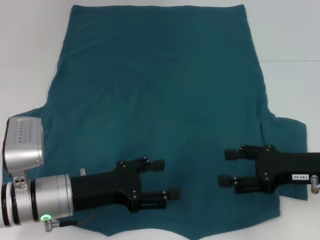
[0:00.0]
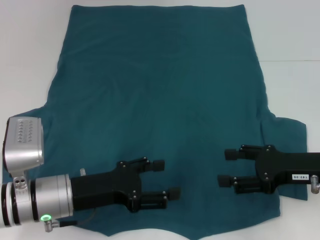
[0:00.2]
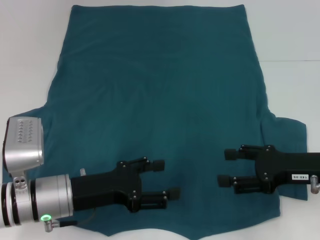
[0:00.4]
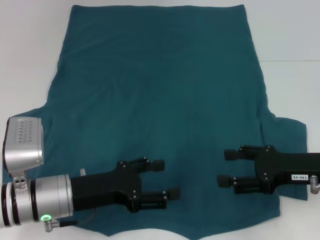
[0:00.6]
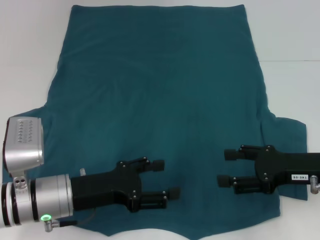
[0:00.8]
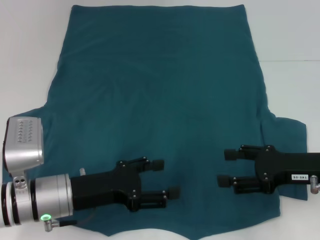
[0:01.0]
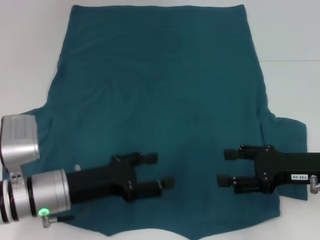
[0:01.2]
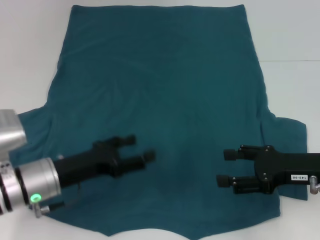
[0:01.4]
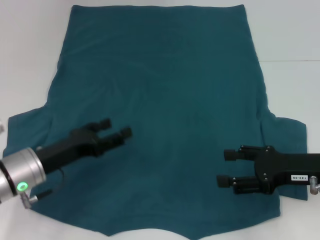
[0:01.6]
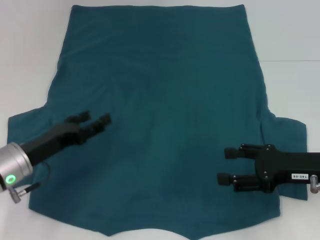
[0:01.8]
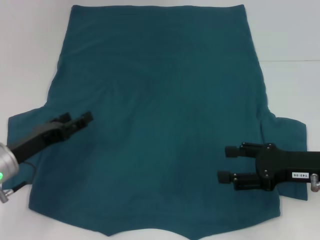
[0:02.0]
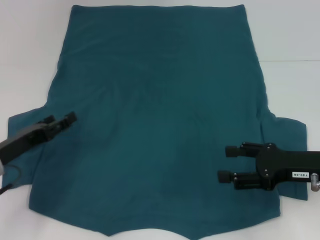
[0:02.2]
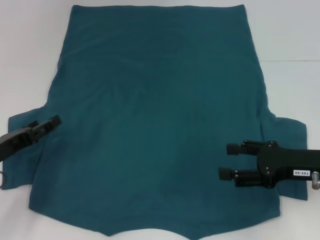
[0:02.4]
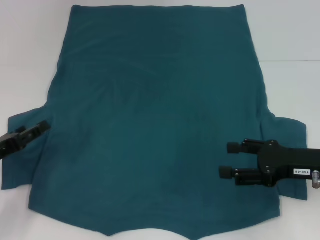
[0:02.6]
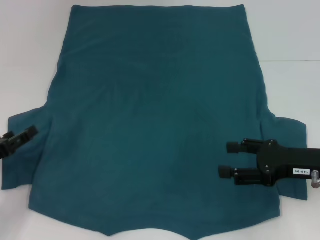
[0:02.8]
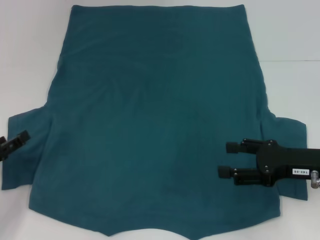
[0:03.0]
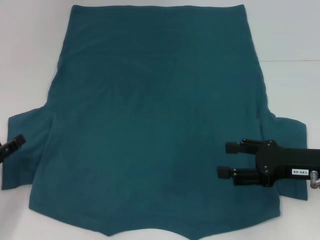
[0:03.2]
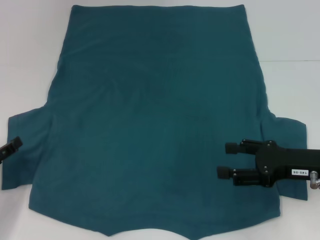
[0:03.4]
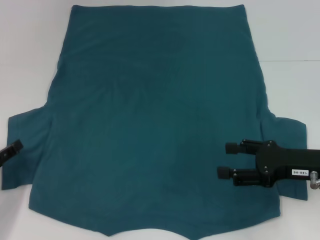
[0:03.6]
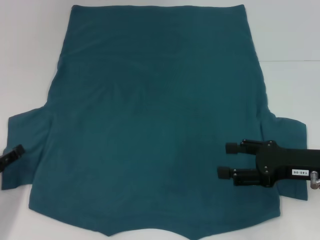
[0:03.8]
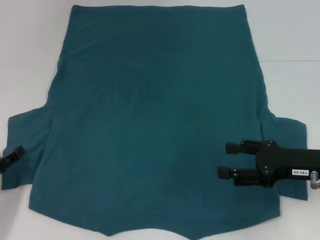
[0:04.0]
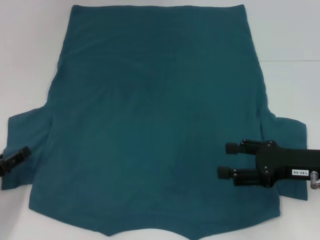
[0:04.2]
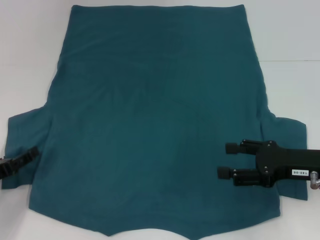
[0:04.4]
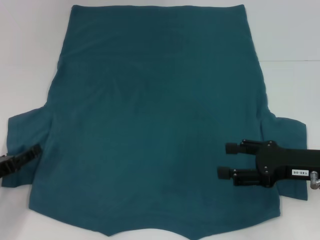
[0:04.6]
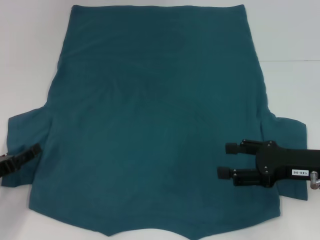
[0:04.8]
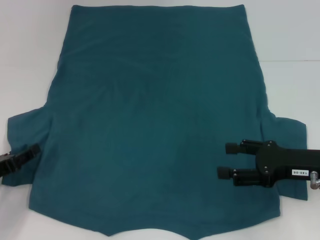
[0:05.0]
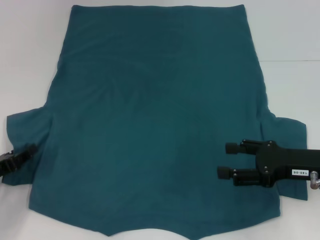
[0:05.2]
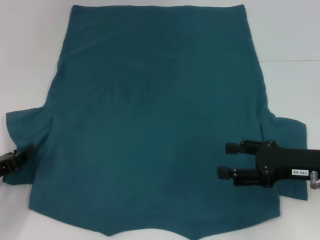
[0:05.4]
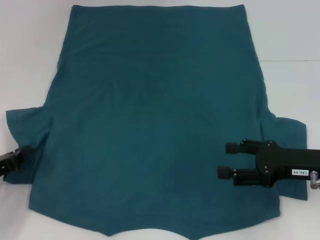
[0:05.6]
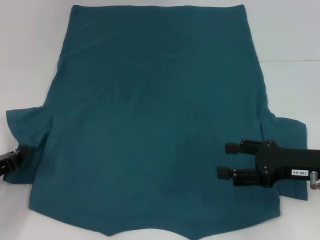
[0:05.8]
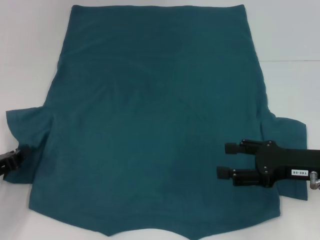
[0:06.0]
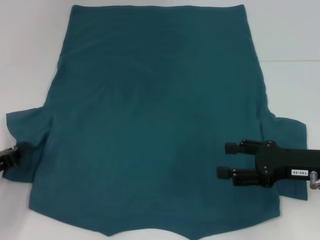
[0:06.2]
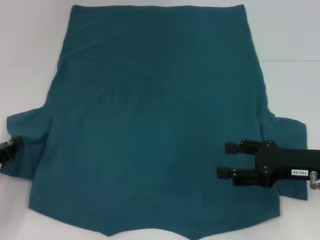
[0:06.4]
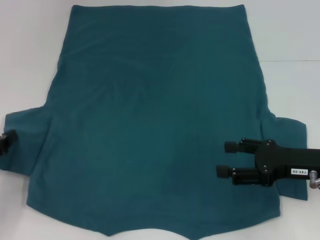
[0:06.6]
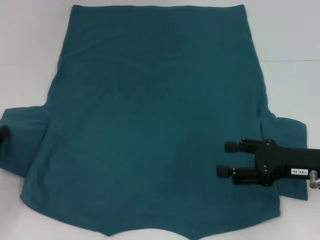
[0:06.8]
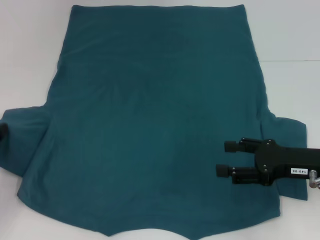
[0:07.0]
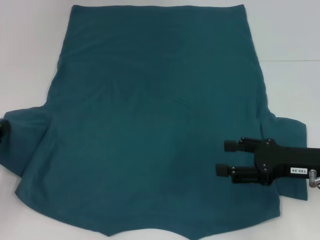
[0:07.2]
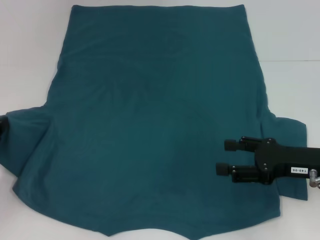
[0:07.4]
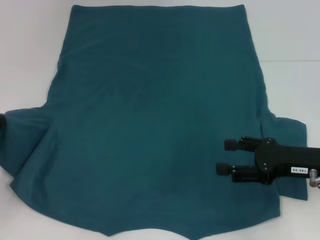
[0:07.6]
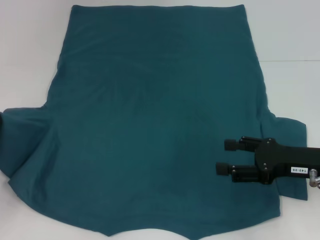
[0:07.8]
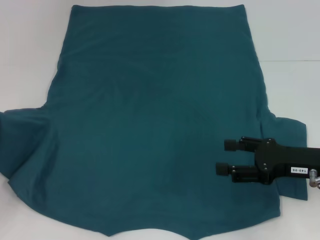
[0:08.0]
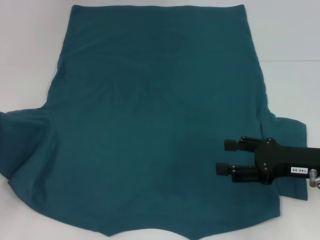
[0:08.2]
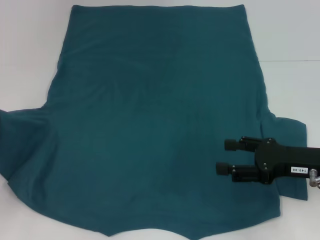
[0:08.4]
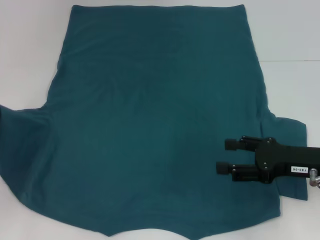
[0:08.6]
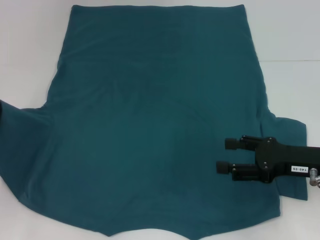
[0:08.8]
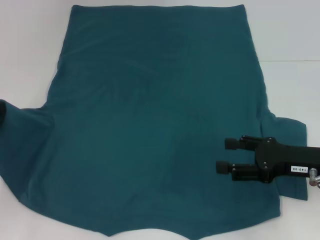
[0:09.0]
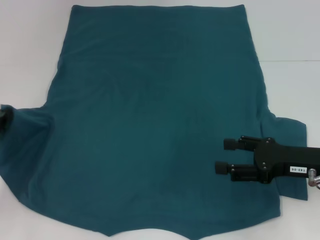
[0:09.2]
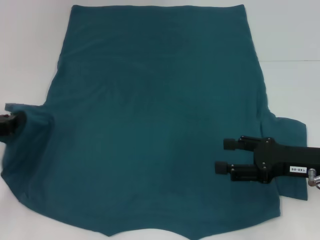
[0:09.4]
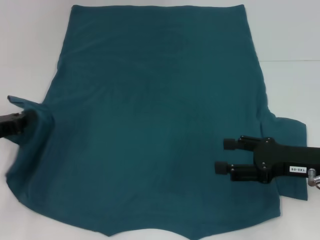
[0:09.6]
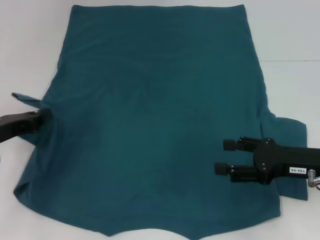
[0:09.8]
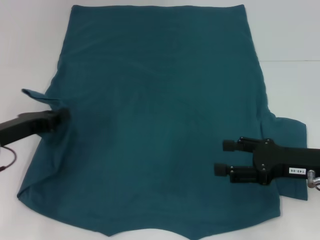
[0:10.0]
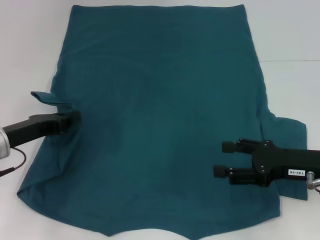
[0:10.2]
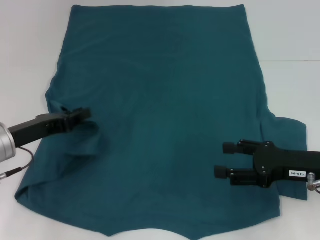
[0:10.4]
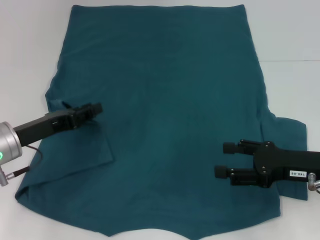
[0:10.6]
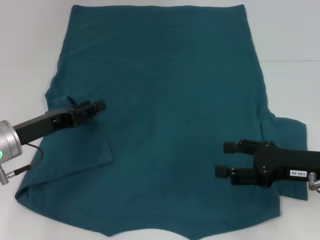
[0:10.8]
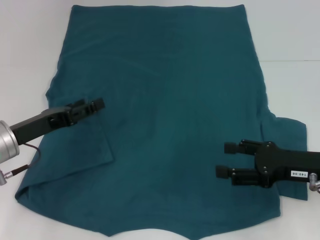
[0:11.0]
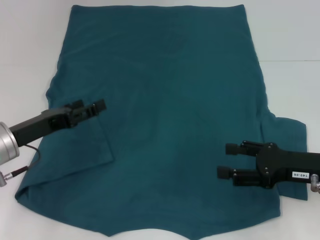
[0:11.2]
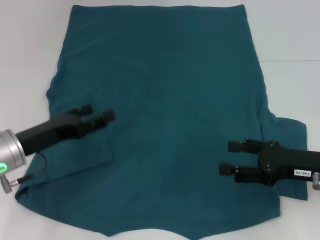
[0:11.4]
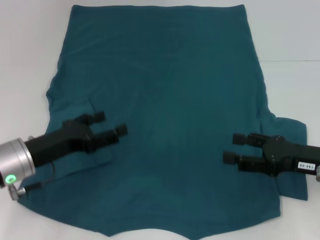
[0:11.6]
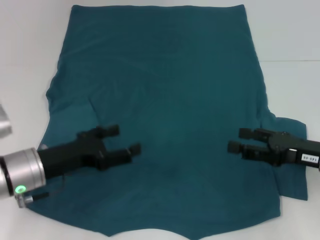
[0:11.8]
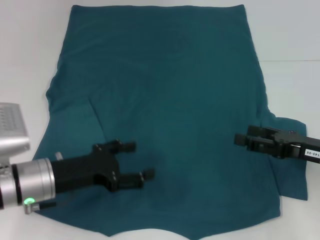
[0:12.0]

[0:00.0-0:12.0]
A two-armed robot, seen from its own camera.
Step, 0:00.0 to 0:11.2: Fold the bottom left sleeve with your left hand.
0:00.0 to 0:01.6: The left gripper shifts by approximately 5 cm.
0:01.6 to 0:03.0: The left gripper moves to the left, approximately 10 cm.
0:03.0 to 0:04.4: There are only small adjustments of the grippers.
0:04.4 to 0:06.0: The left gripper closes its fingers.
0:06.0 to 0:07.6: The left gripper ends up some 5 cm from where it was.
0:09.0 to 0:10.4: The left gripper travels to the right by approximately 10 cm.
0:10.4 to 0:12.0: The left gripper is displaced to the right by approximately 5 cm, and opens up.

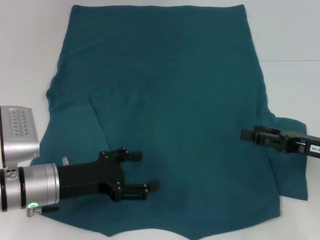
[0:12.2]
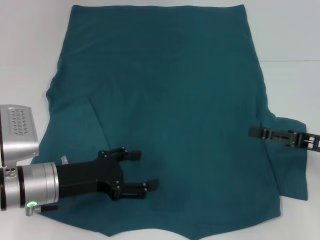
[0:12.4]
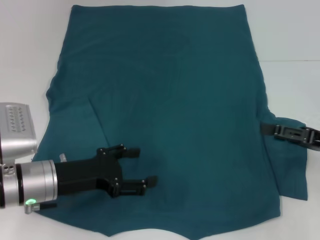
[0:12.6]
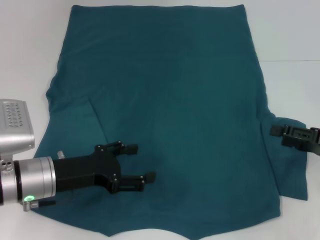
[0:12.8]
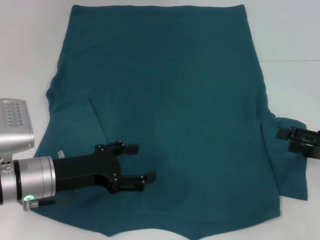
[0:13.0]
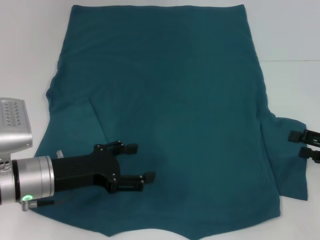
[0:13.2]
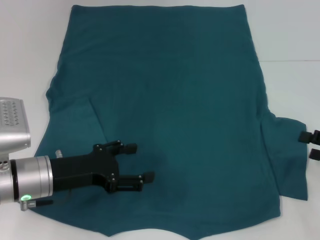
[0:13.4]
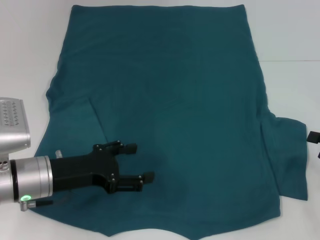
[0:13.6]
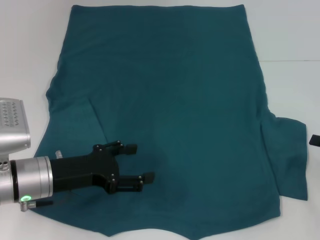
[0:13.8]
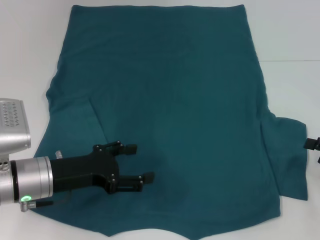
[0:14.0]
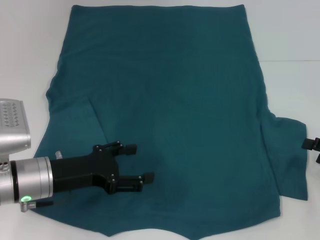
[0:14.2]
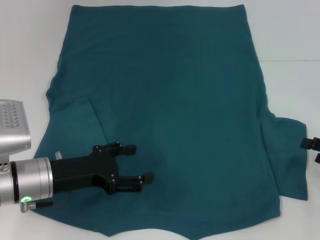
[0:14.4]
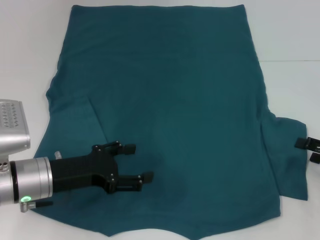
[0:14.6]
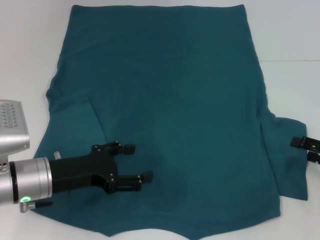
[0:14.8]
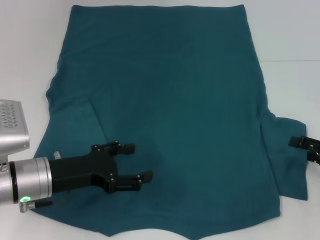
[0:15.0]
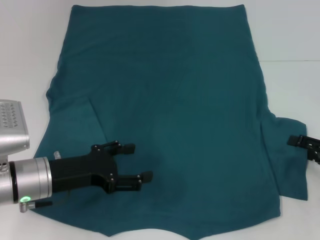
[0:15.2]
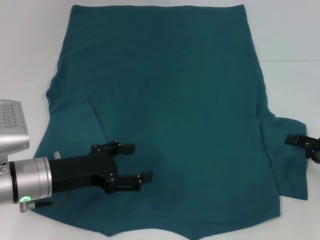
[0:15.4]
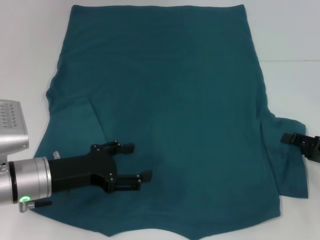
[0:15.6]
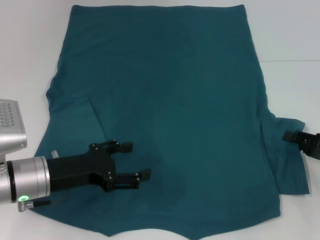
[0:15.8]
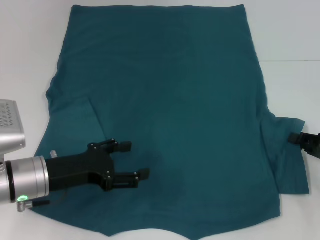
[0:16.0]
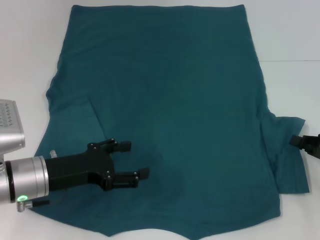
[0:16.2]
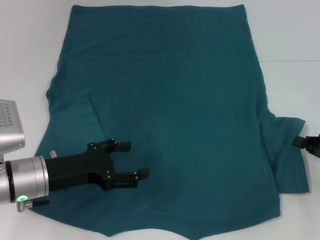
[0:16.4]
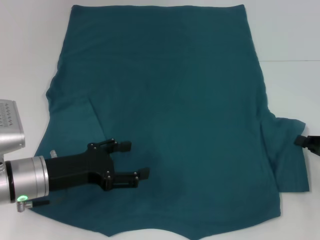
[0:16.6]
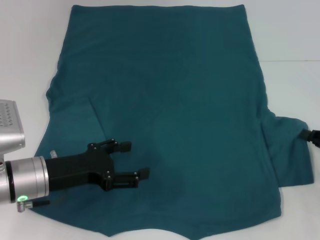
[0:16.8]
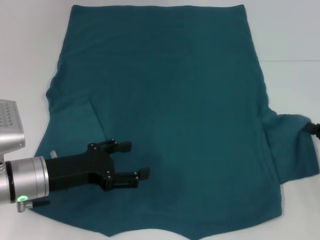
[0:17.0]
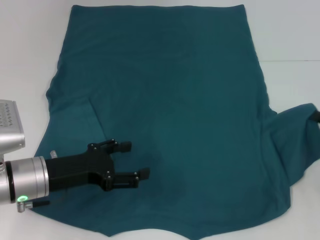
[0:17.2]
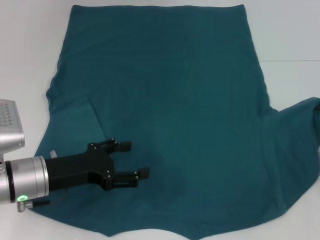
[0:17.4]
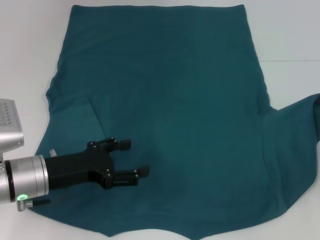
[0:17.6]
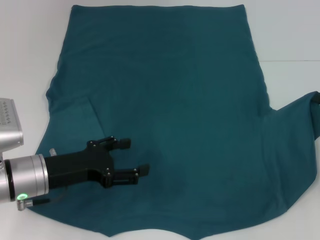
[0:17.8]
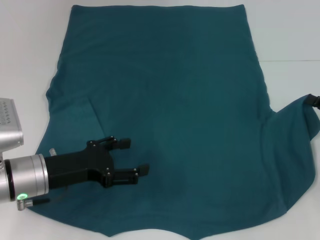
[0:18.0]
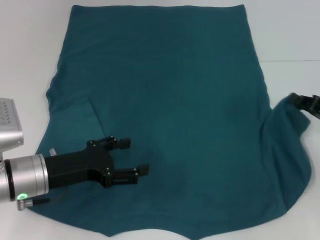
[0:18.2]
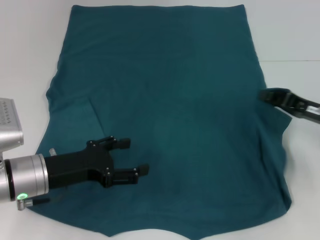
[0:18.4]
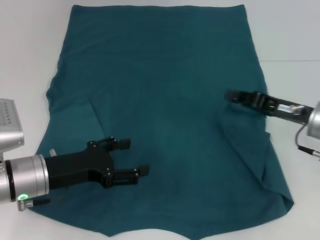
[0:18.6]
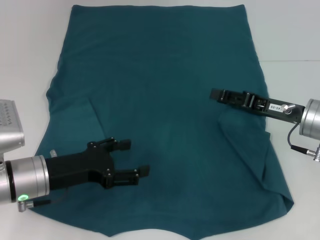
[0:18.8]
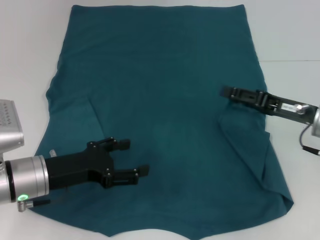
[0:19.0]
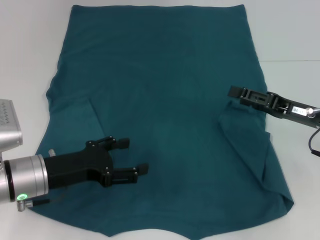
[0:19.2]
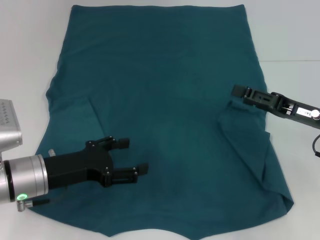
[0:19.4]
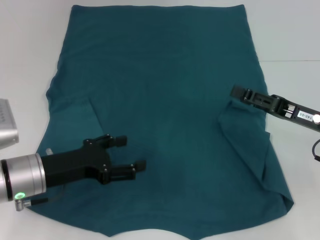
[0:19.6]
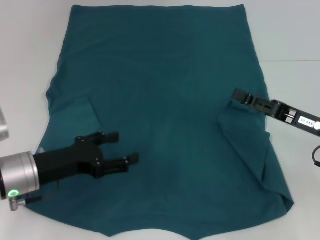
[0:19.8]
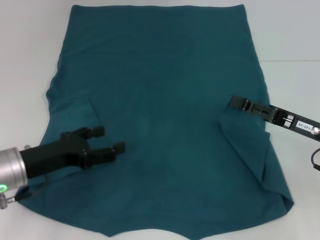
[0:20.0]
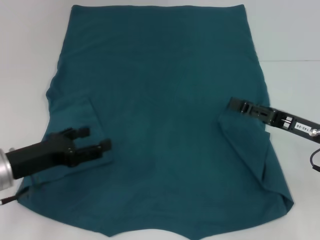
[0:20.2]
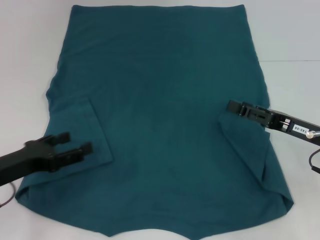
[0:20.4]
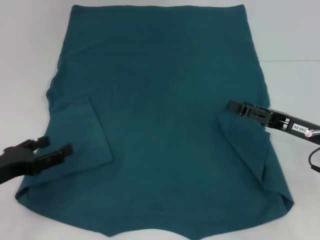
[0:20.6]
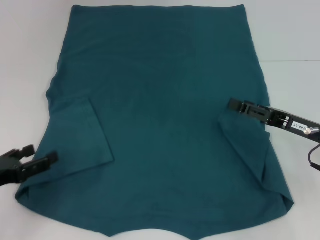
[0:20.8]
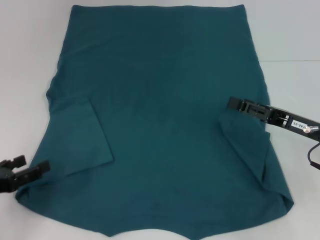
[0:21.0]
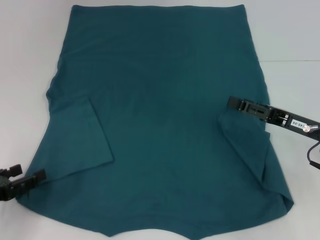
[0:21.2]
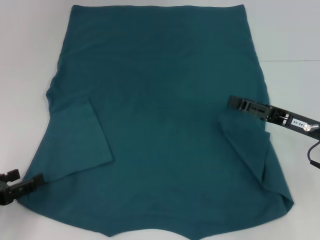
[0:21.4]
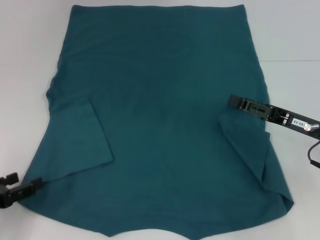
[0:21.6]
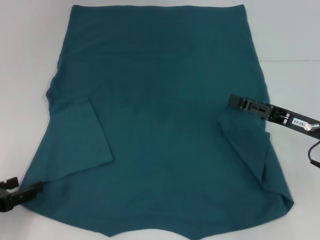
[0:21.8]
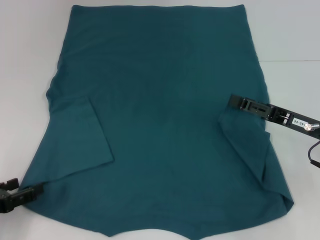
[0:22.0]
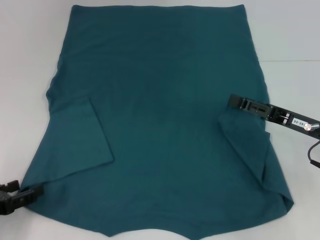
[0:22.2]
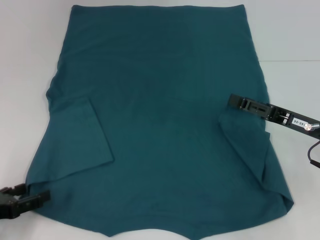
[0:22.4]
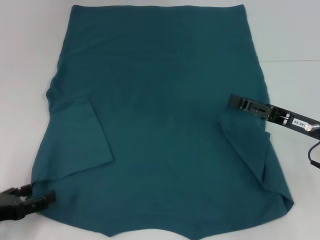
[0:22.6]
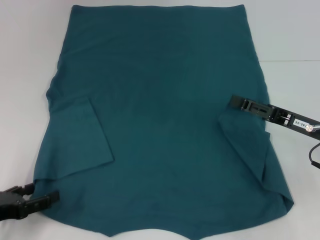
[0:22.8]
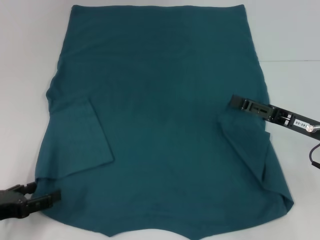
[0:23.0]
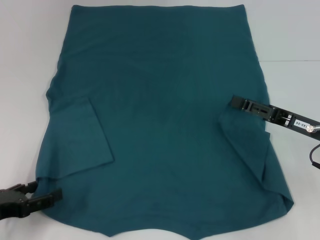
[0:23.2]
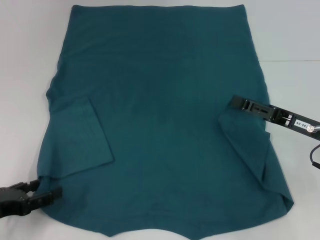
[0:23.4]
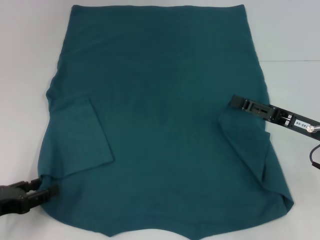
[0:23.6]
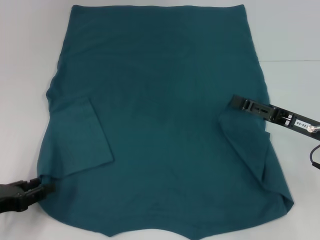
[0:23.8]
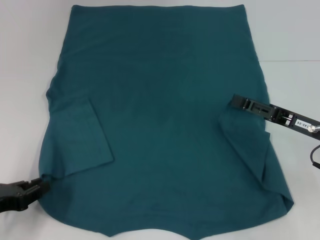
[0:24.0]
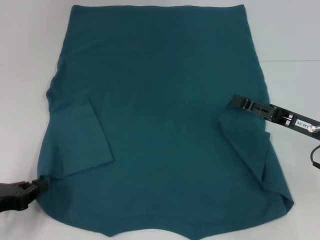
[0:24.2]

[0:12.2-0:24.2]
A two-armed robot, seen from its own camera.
Step, 0:12.2 to 0:19.8: Fold the bottom right sleeve to the right.
0:12.2 to 0:13.8: The right gripper moves to the right, roughly 10 cm.
0:13.8 to 0:15.2: The grippers move only a little.
0:15.2 to 0:16.6: The right gripper closes its fingers.
0:16.6 to 0:18.2: The right gripper shifts by roughly 5 cm.
0:18.2 to 0:19.8: The right gripper heads to the left, covering approximately 5 cm, and opens up.
0:19.8 to 0:21.2: The left gripper is displaced to the left and backward by some 15 cm.
0:21.2 to 0:22.6: There are only small adjustments of the grippers.
0:22.6 to 0:24.2: The left gripper closes up.
